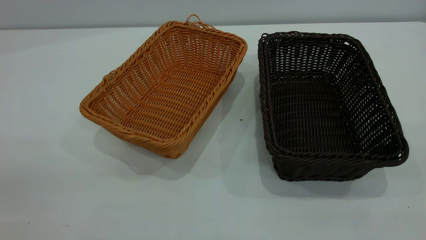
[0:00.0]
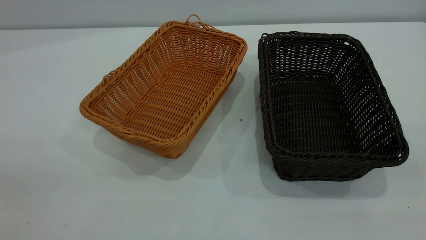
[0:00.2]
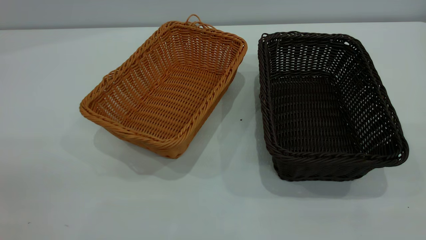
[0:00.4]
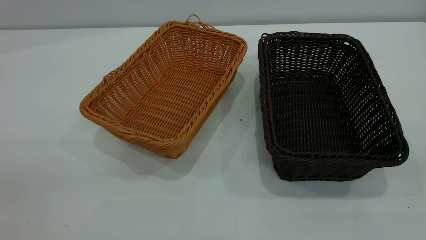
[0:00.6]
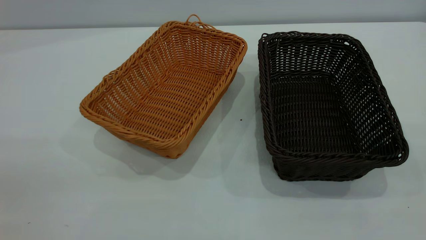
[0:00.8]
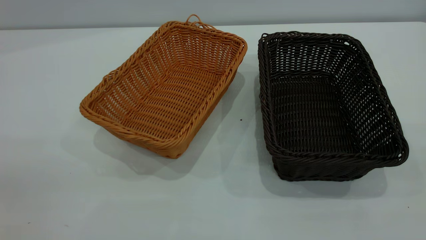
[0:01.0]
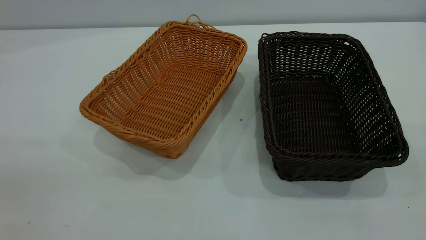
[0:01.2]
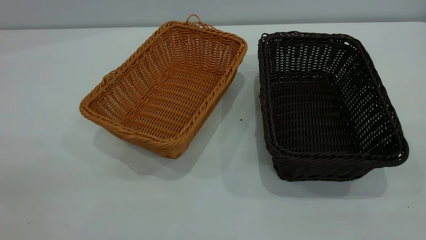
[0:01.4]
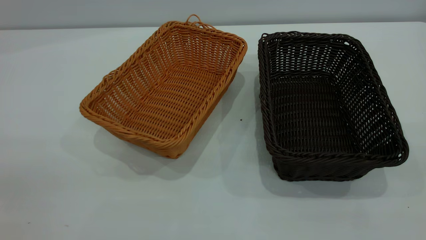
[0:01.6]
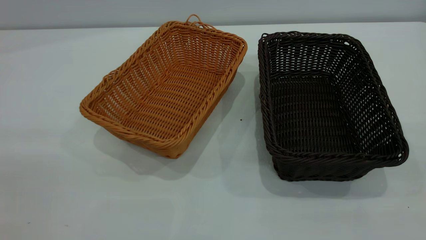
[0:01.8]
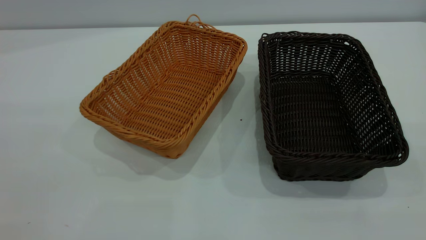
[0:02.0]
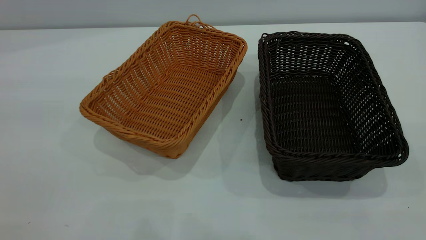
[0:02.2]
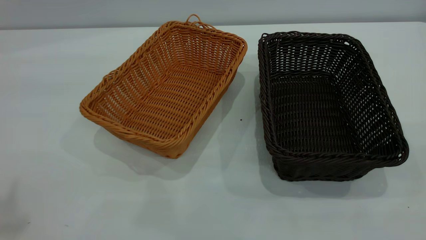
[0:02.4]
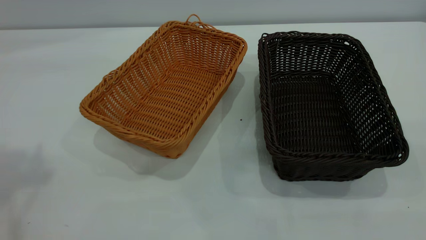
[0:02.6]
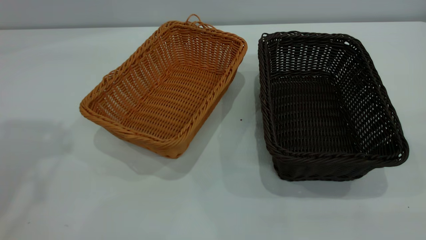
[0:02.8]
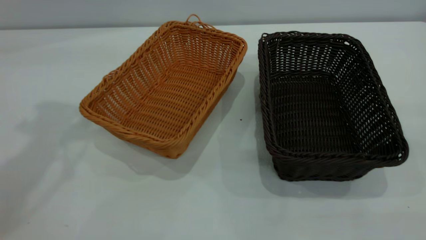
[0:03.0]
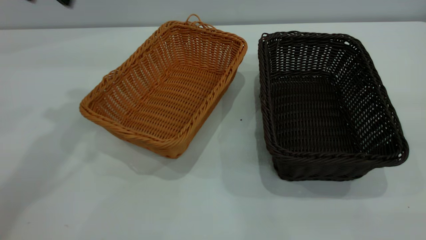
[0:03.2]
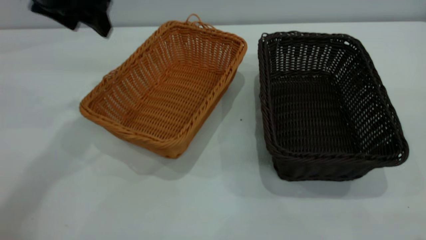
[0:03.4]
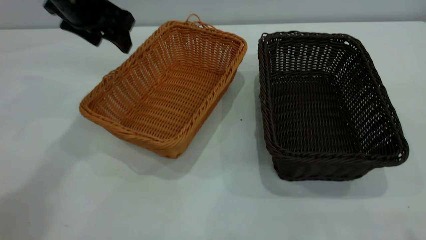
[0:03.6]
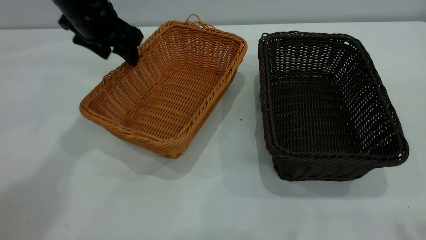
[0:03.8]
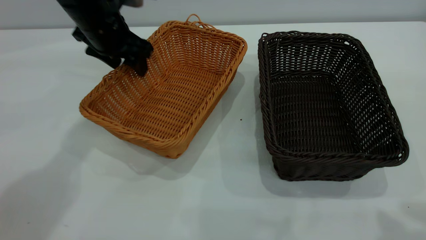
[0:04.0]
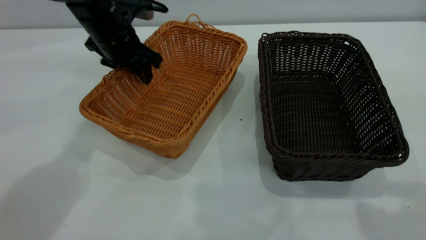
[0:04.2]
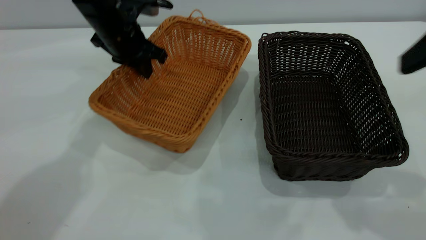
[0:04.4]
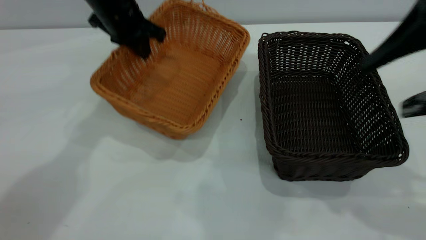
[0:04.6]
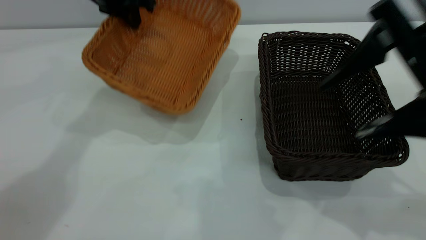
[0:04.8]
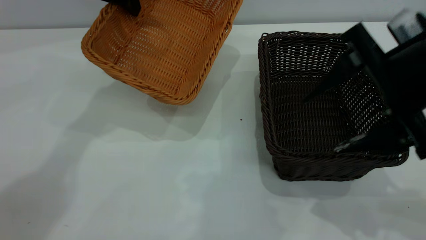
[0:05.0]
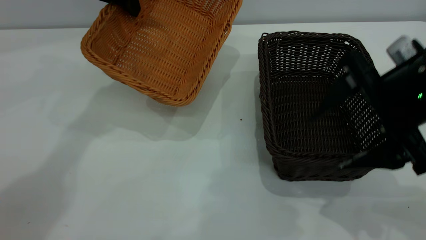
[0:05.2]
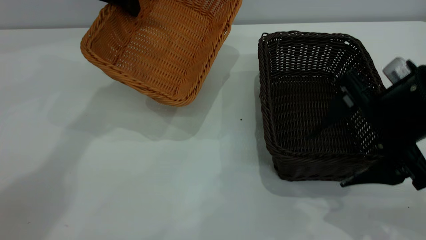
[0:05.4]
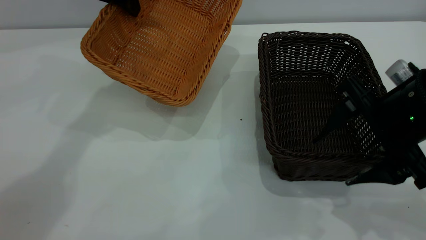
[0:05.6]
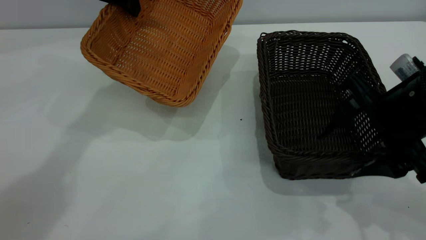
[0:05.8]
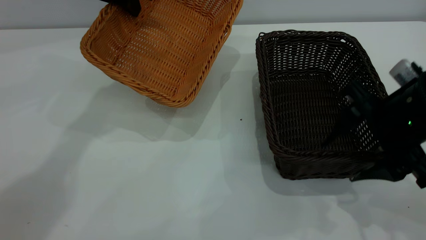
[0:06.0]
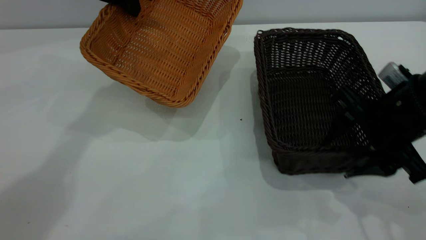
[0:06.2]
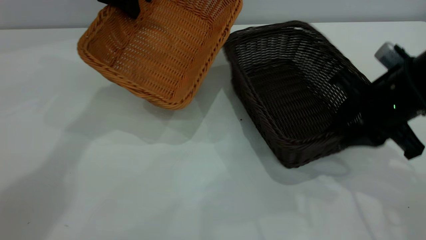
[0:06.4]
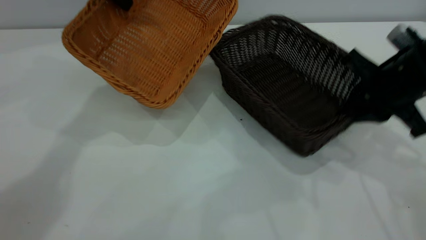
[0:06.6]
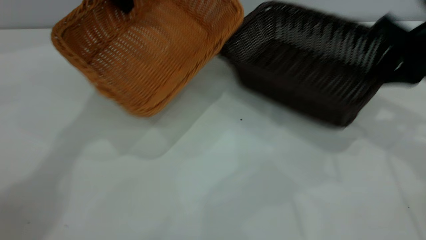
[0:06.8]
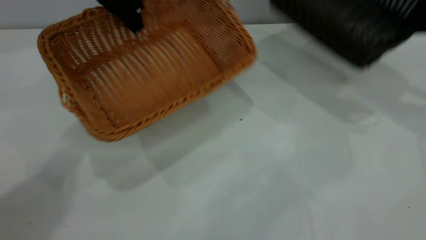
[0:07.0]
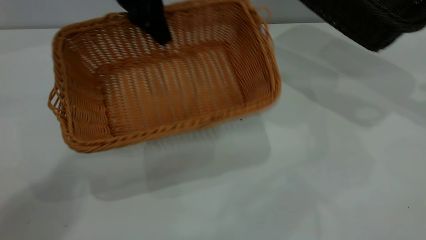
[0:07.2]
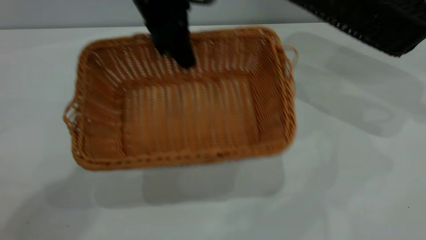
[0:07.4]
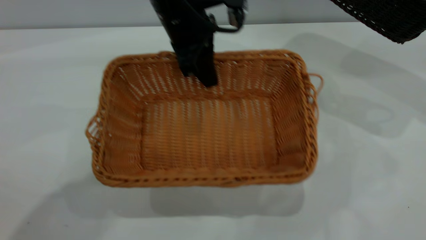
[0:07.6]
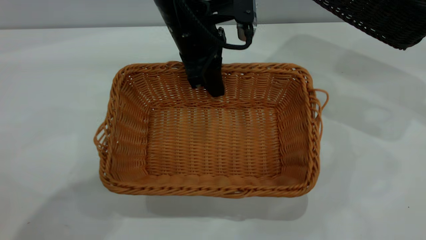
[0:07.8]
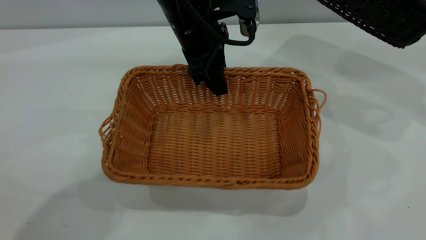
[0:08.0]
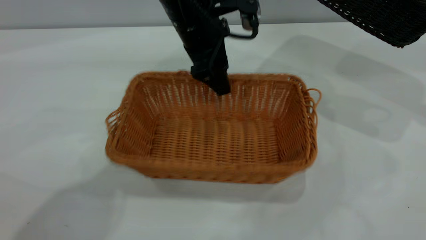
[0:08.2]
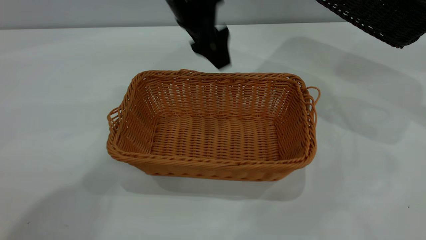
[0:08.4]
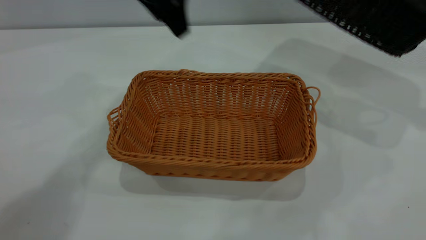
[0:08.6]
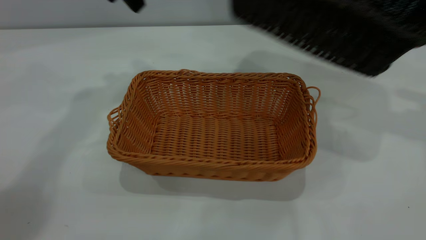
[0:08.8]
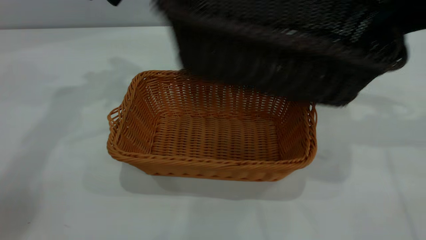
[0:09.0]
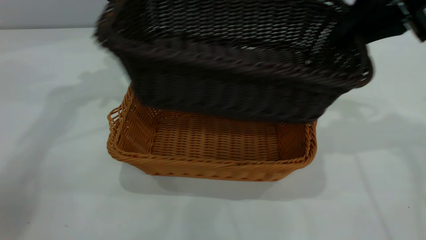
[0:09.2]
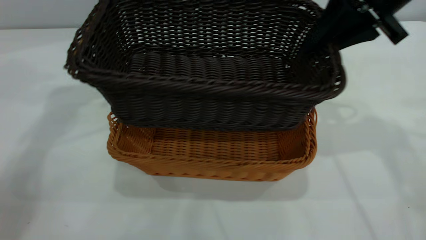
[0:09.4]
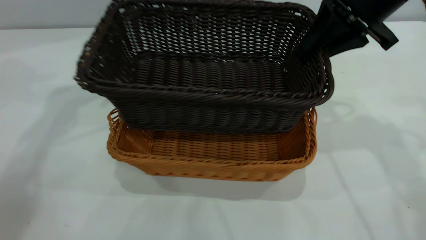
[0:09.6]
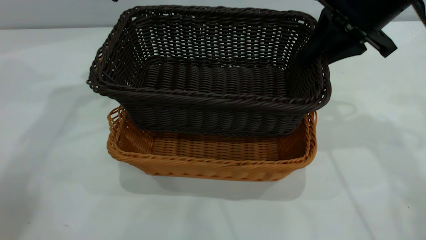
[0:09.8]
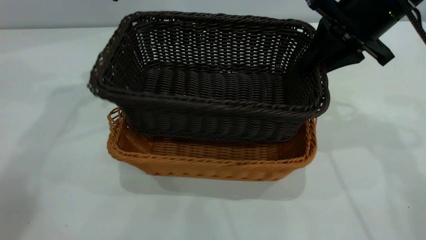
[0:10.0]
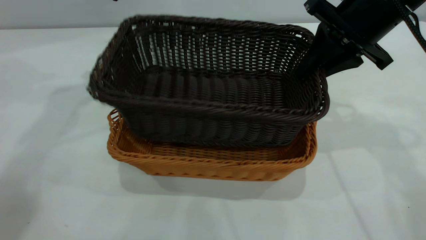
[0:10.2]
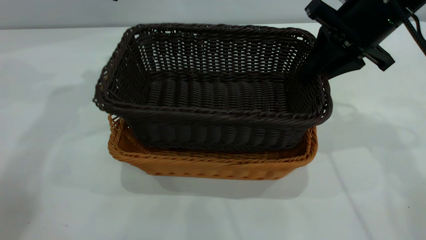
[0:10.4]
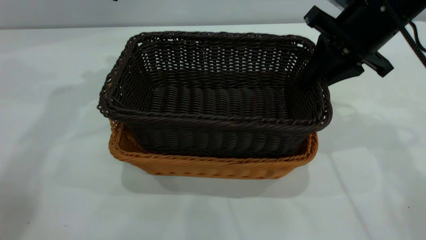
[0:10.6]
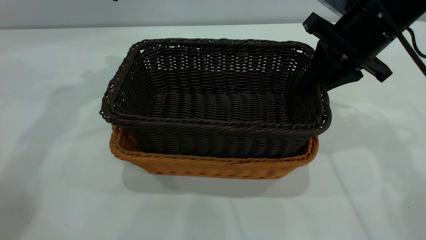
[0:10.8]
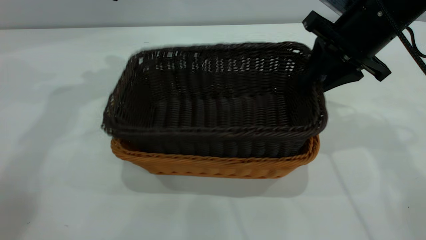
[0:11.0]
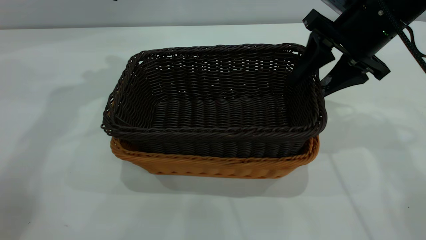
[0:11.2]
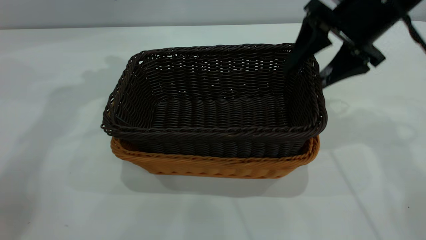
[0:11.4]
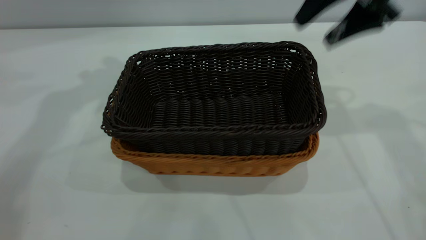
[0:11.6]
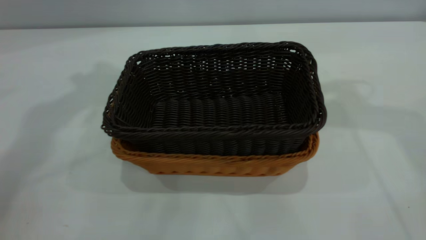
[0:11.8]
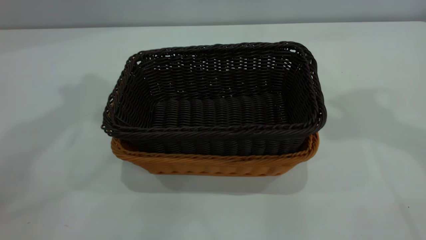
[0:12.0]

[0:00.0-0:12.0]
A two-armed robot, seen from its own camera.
Task of the whole recording: the left gripper grasp the brown basket and place it in the center of the table, the right gripper grasp the black basket and place it inside the brown one.
Step, 0:00.0 to 0:06.8: Pick up the light basket with the right gripper.
Step, 0:07.0 to 0:08.4: Place the light-colored basket in the center.
Step, 0:08.6 to 0:11.4: Place the dark basket on top of the light basket.
0:00.0 to 0:01.6: The two grippers keep their place.
0:03.0 to 0:04.4: The left gripper is displaced downward, forward and to the right by some 25 cm, and closes its fingers. The right gripper is displaced forward and downward by approximately 15 cm.
0:04.4 to 0:06.0: The right gripper is displaced downward by approximately 15 cm. Meanwhile the left gripper moves upward, roughly 10 cm.
0:06.0 to 0:07.6: The right gripper shifts approximately 25 cm to the right, upward and forward, and closes up. Meanwhile the left gripper travels to the right and backward by some 15 cm.
0:07.6 to 0:09.0: The right gripper is displaced to the left by about 15 cm. The left gripper travels to the left and upward by roughly 20 cm, and opens.
0:09.0 to 0:10.4: The right gripper heads to the left and downward, covering approximately 10 cm.
0:10.4 to 0:12.0: The left gripper shifts some 25 cm upward and backward. The right gripper goes about 25 cm upward, and opens up.
